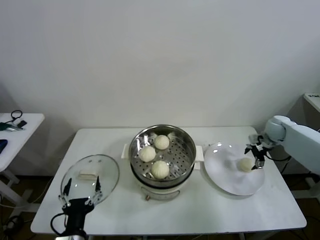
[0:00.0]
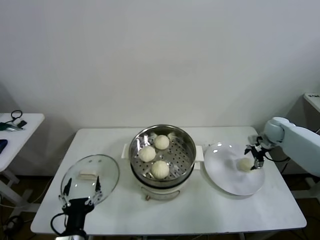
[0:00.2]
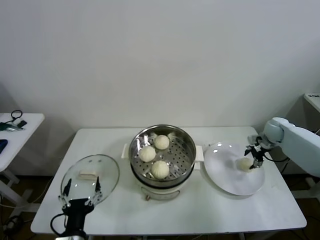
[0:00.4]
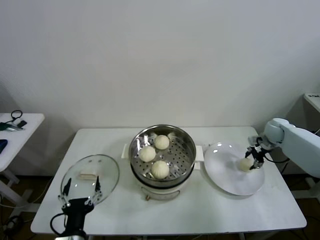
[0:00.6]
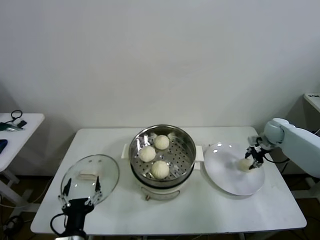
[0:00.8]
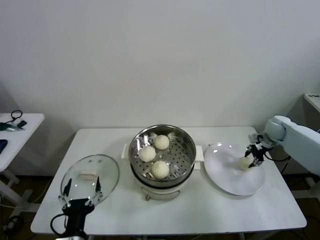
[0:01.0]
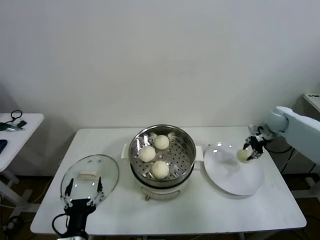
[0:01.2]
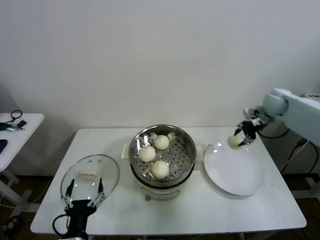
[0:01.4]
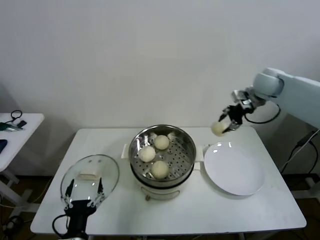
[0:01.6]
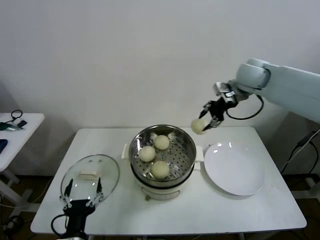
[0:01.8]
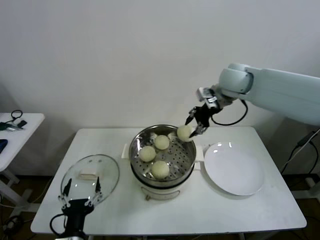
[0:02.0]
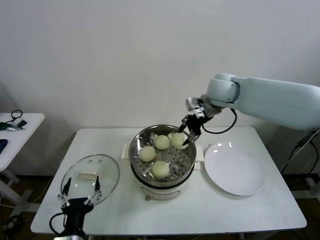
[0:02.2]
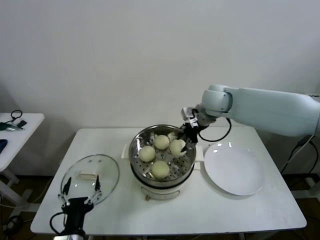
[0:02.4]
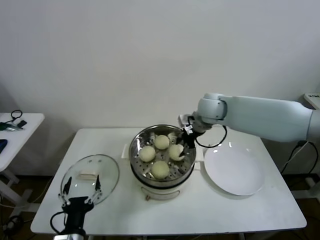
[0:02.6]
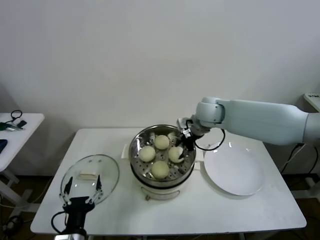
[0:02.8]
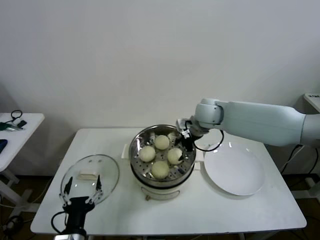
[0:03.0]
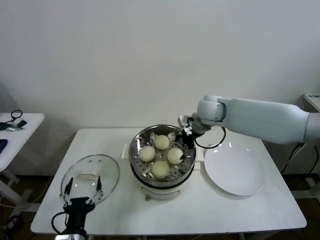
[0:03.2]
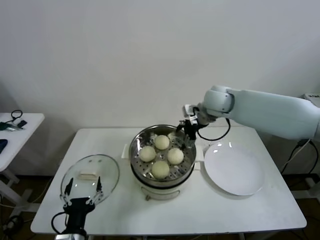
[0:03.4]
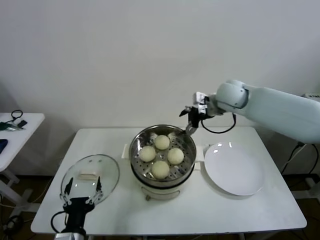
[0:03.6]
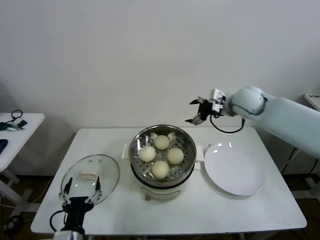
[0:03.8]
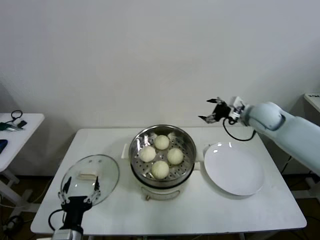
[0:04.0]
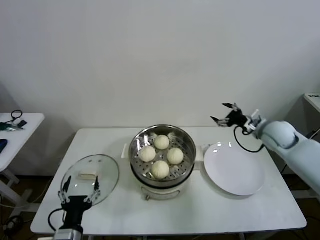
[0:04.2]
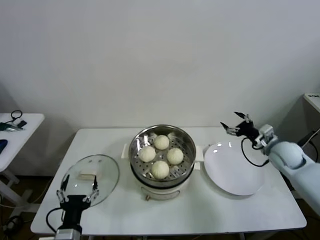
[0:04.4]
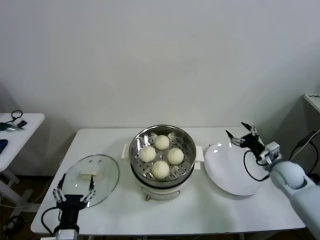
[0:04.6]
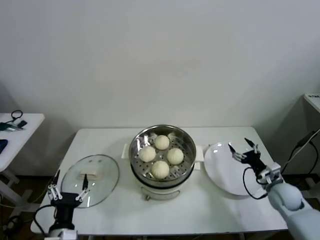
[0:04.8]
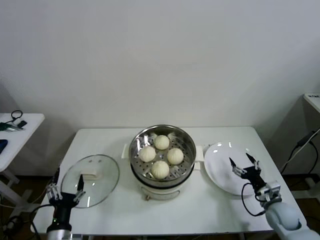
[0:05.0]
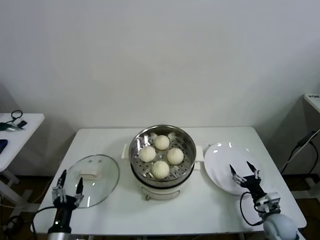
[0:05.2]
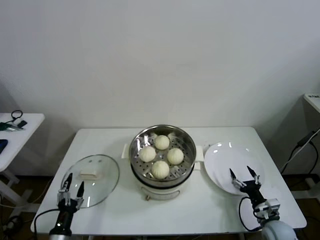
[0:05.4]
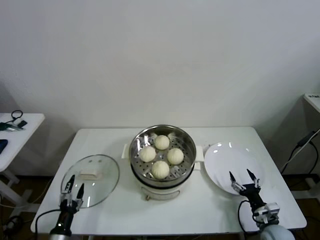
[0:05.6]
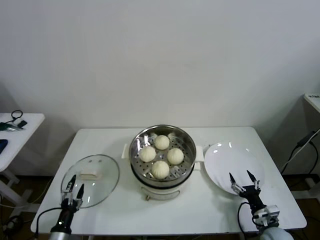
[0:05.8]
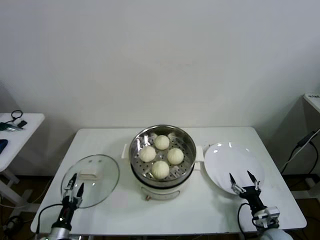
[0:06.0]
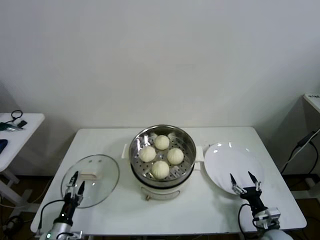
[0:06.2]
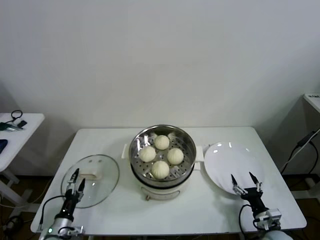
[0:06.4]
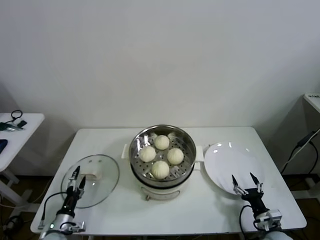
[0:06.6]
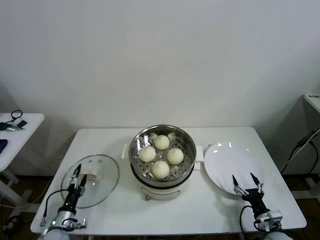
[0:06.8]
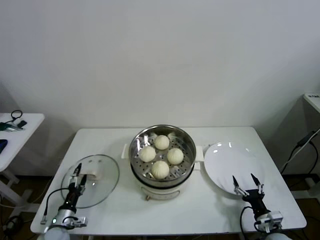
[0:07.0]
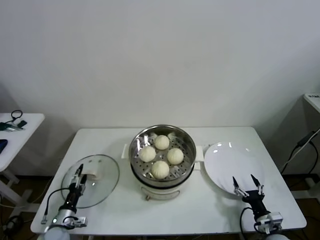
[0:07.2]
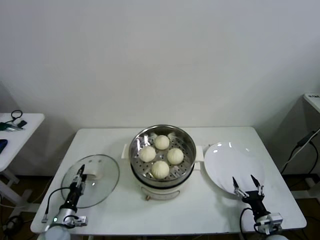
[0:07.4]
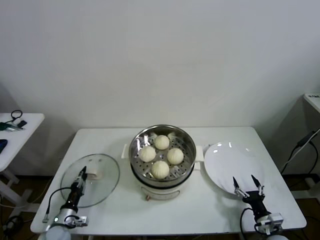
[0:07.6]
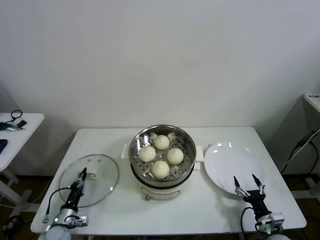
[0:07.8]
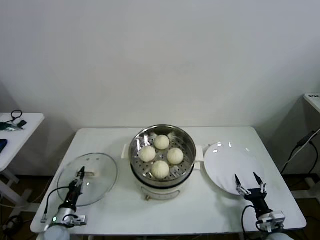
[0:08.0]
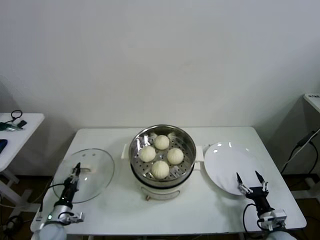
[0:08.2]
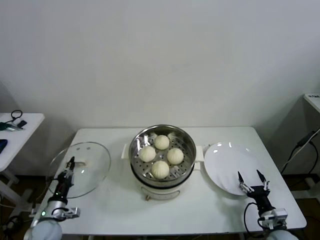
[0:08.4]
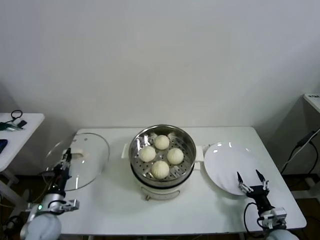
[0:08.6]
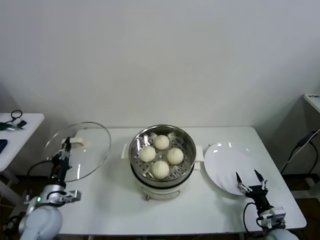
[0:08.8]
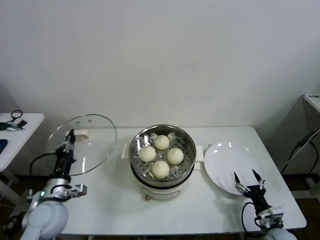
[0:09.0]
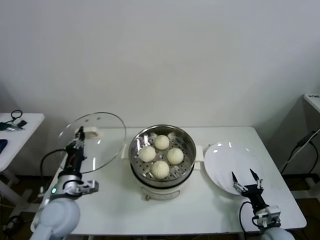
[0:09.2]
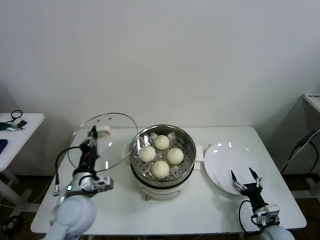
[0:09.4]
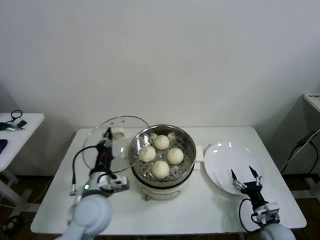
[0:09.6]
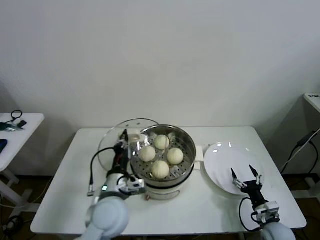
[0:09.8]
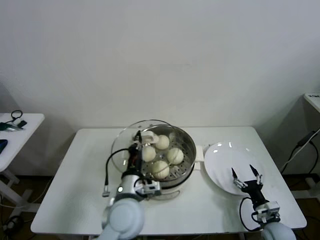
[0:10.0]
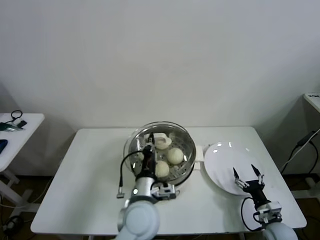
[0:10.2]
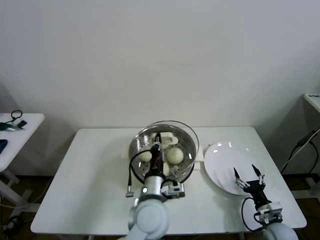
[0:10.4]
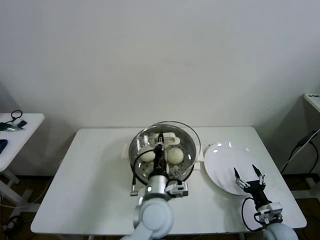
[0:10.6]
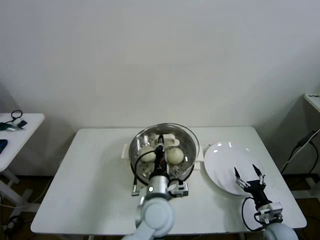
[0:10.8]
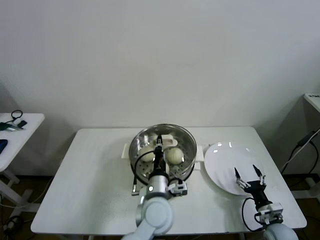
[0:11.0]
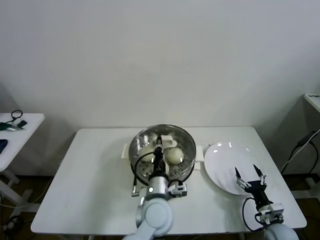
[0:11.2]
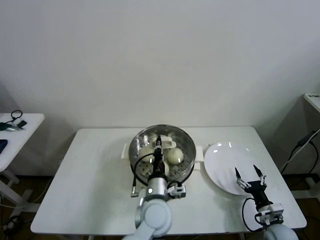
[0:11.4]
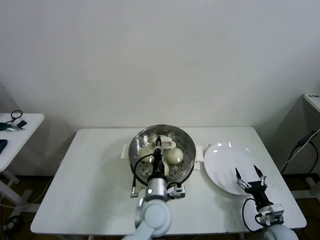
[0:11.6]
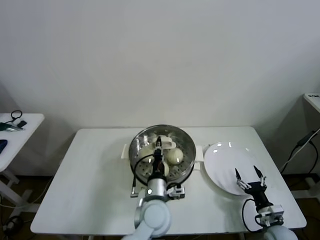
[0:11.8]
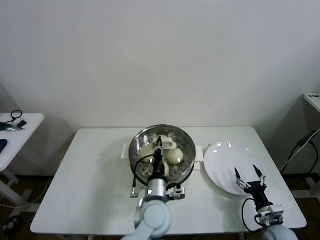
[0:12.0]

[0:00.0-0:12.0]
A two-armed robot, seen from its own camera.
Task of the whole recording: take steamed baozi put them in steamer then cover it.
Step, 0:01.0 to 0:03.0: Place the baozi on the steamer with right gripper.
Step, 0:03.2 to 0:07.8: Grasp the pot lid with left gripper.
0:00.0 to 0:01.6: The right gripper heads upward and to the left, covering roughly 25 cm, and closes its fingers.
0:01.6 to 0:03.0: The right gripper is displaced to the left and downward by approximately 20 cm, and opens up.
0:03.0 to 0:04.4: The right gripper goes roughly 30 cm to the right and downward, and opens up.
0:04.4 to 0:06.0: The left gripper moves downward and to the left, about 20 cm; the right gripper moves downward and backward, approximately 30 cm.
0:06.0 to 0:07.6: The left gripper is displaced forward by some 10 cm, and closes up.
0:07.6 to 0:09.0: The left gripper is displaced upward by approximately 20 cm, and closes its fingers.
0:09.0 to 0:10.4: The left gripper travels to the right by roughly 30 cm.
0:10.4 to 0:12.0: The left gripper travels downward by some 5 cm.

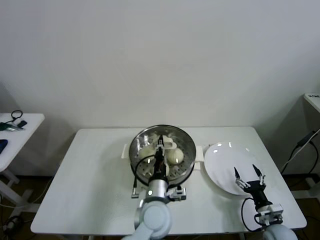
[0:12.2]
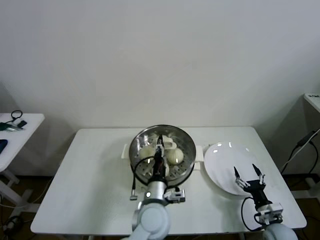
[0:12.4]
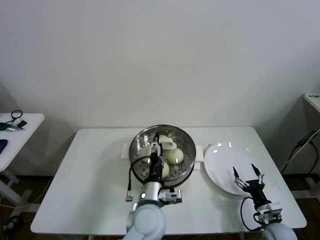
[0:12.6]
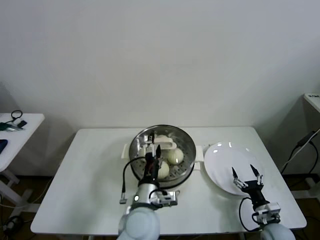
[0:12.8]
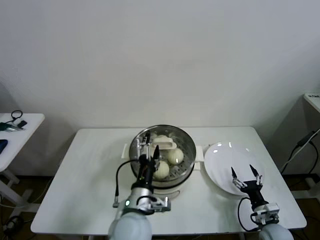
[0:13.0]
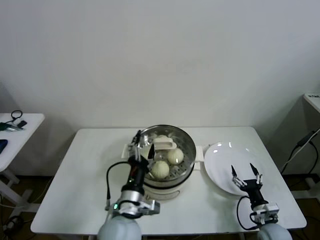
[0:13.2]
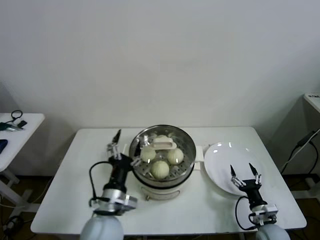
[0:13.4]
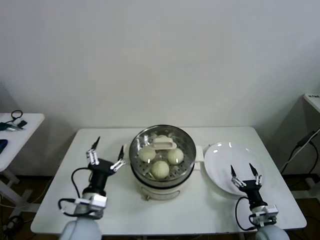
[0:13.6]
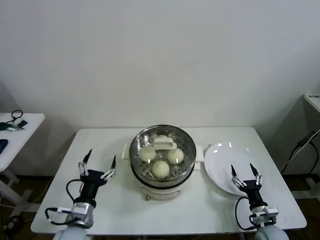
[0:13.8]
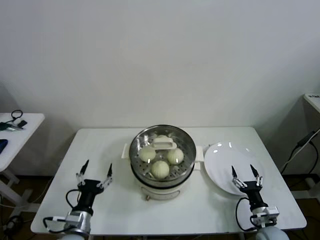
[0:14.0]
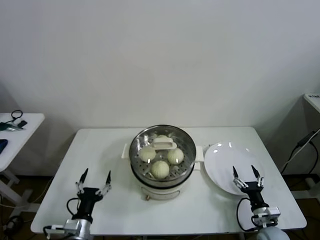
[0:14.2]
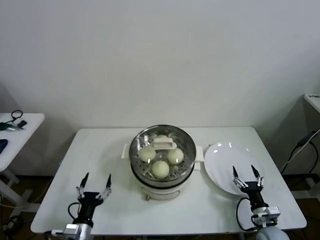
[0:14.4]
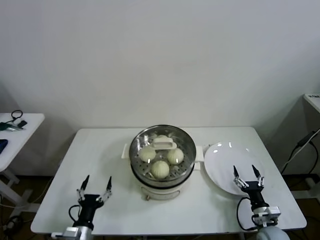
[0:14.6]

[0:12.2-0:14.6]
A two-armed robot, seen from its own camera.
Task of the whole recording: take steamed baozi put them in steamer then cover it.
0:12.2 to 0:13.4: The left gripper goes approximately 10 cm to the left and backward, and opens.
0:13.4 to 0:14.6: The left gripper heads downward and to the left, covering approximately 20 cm.
